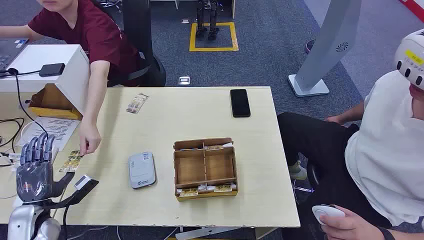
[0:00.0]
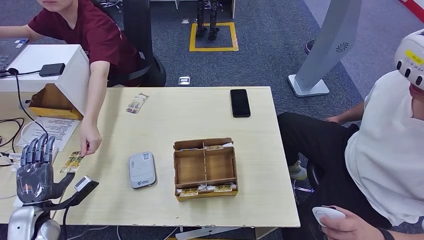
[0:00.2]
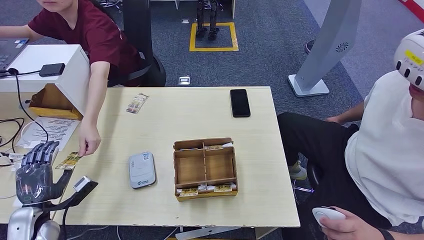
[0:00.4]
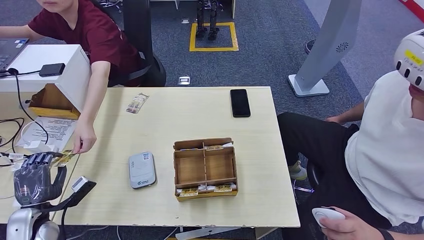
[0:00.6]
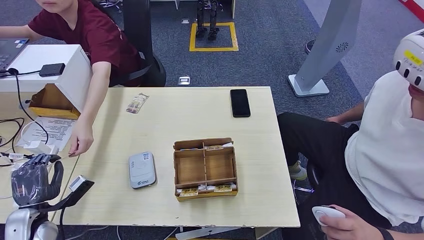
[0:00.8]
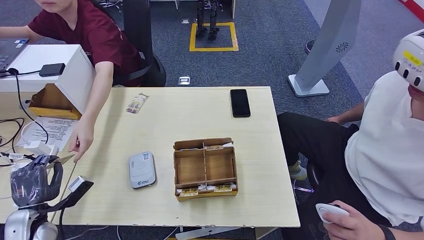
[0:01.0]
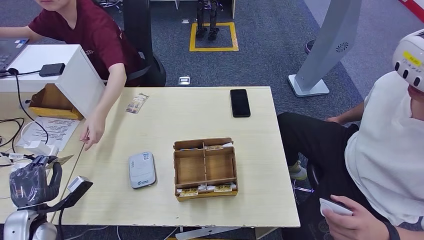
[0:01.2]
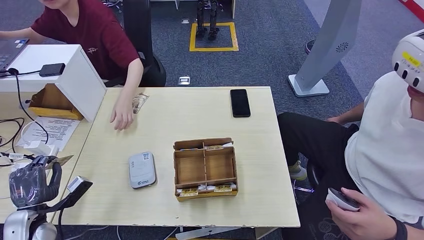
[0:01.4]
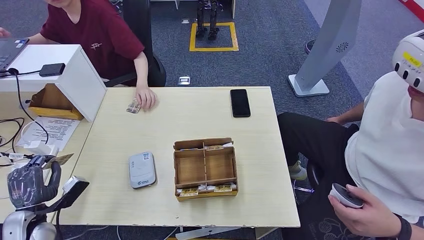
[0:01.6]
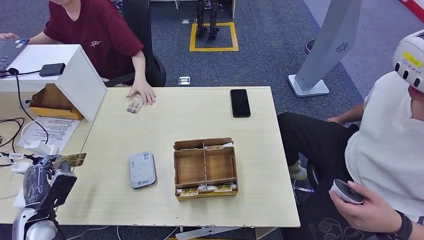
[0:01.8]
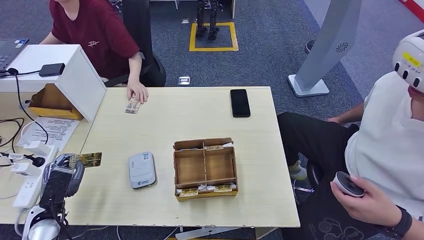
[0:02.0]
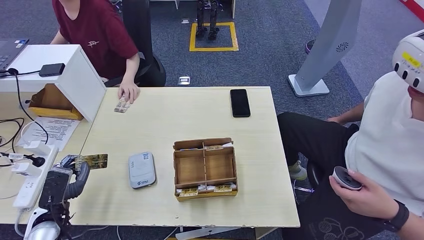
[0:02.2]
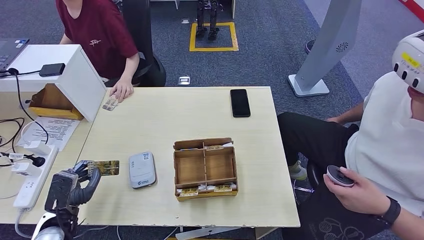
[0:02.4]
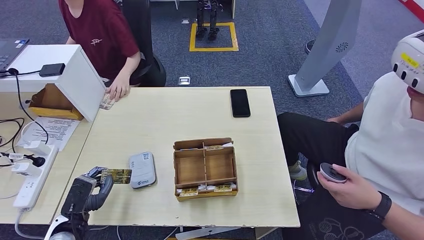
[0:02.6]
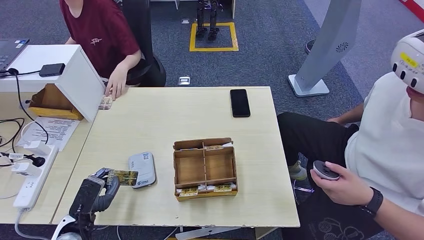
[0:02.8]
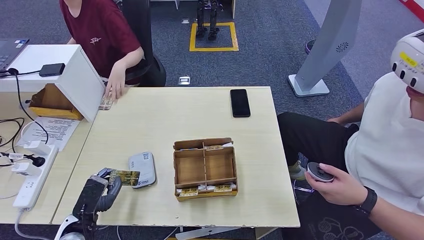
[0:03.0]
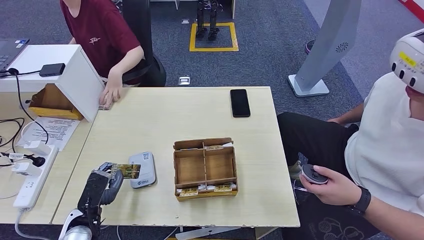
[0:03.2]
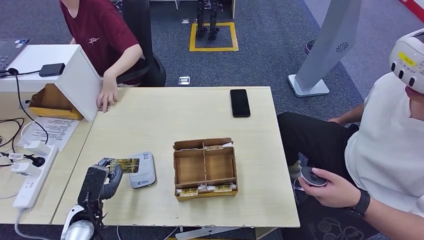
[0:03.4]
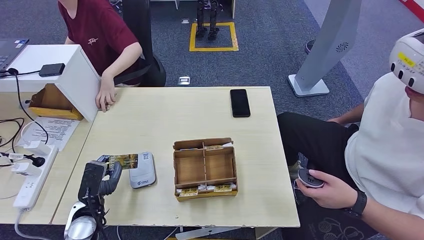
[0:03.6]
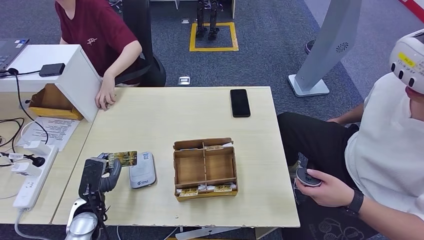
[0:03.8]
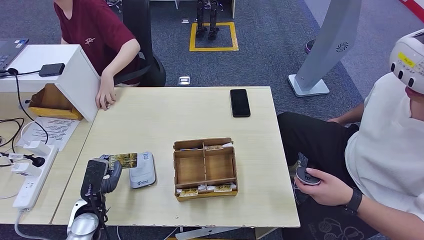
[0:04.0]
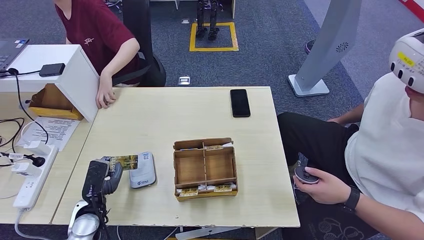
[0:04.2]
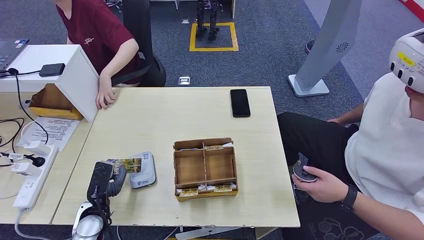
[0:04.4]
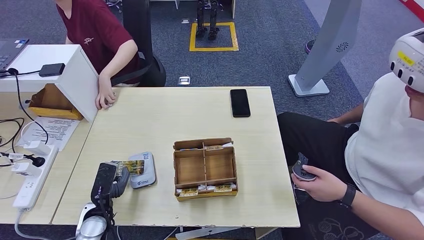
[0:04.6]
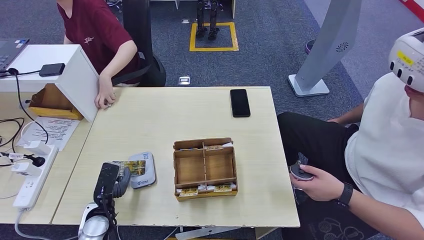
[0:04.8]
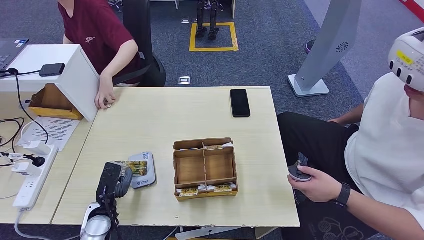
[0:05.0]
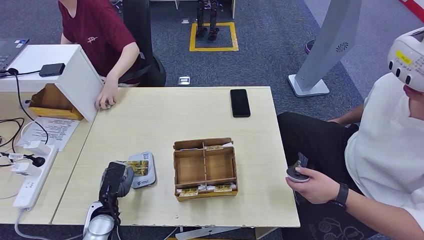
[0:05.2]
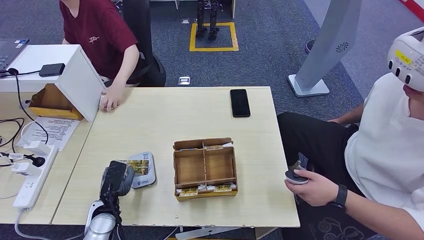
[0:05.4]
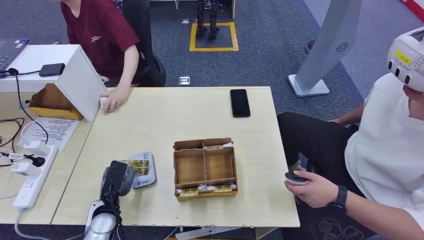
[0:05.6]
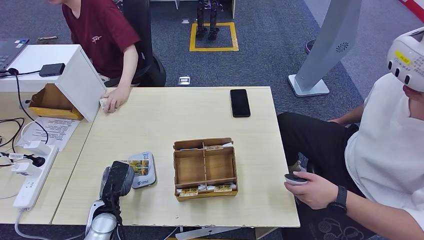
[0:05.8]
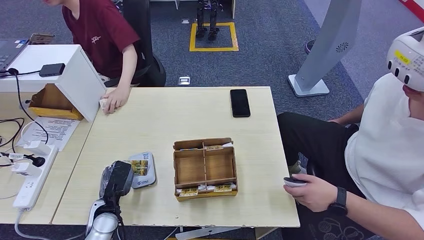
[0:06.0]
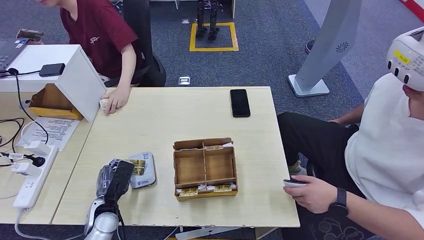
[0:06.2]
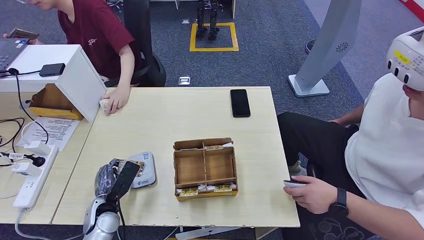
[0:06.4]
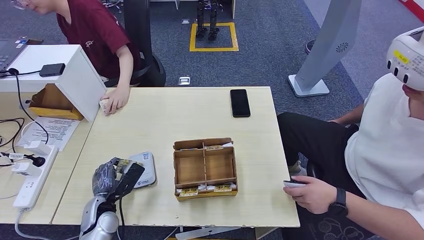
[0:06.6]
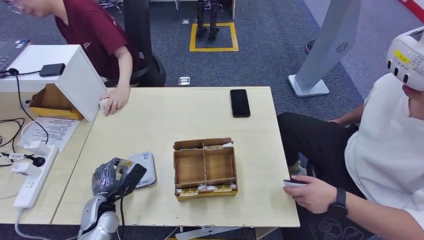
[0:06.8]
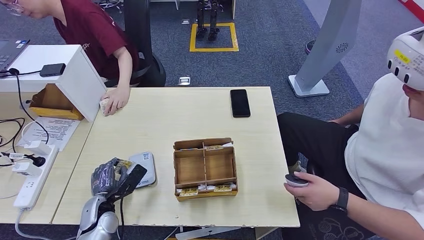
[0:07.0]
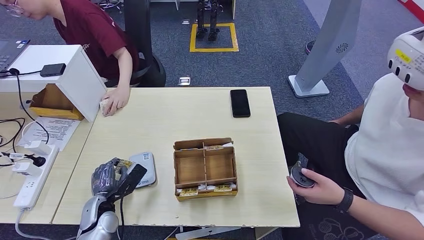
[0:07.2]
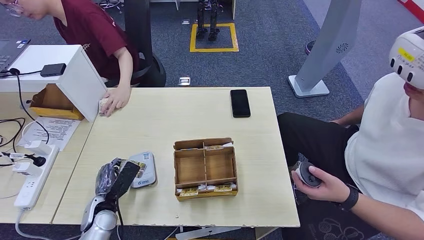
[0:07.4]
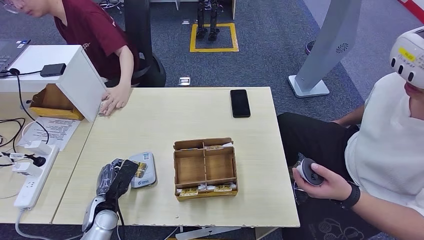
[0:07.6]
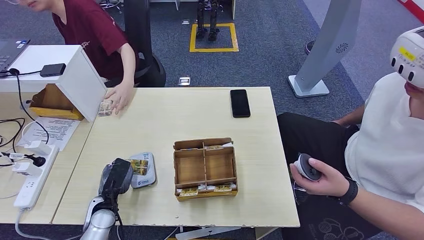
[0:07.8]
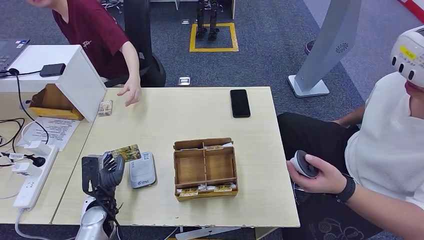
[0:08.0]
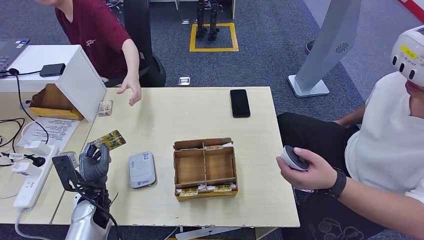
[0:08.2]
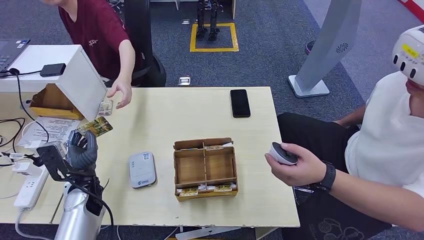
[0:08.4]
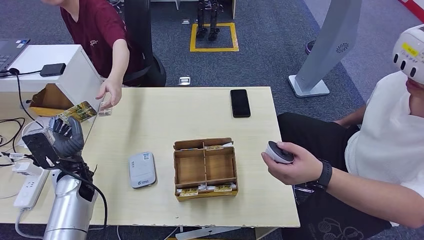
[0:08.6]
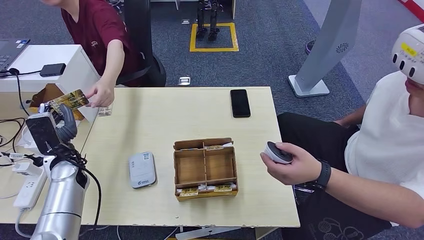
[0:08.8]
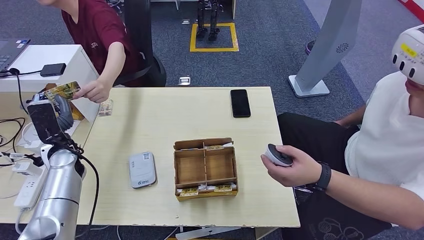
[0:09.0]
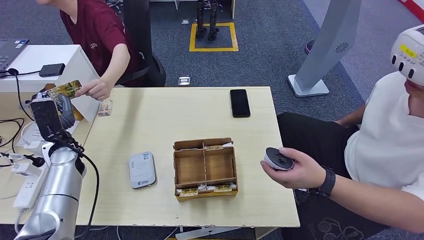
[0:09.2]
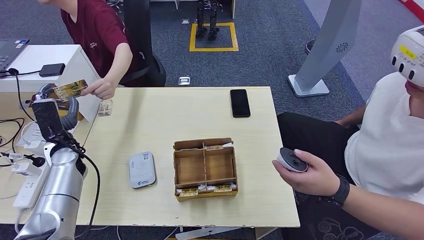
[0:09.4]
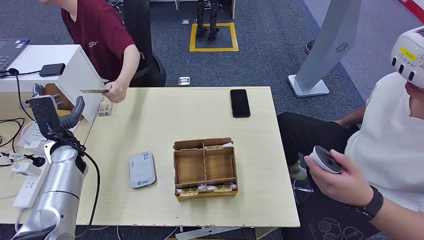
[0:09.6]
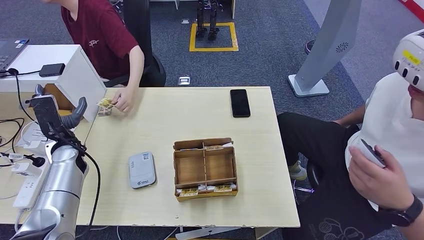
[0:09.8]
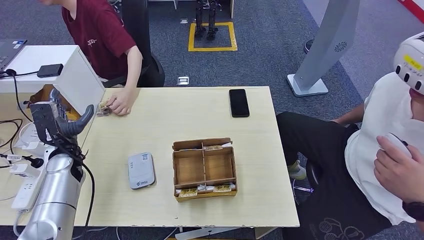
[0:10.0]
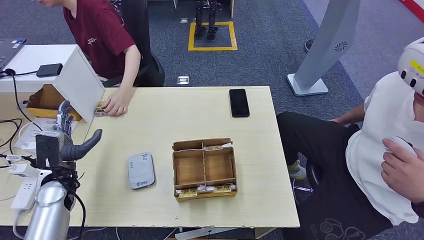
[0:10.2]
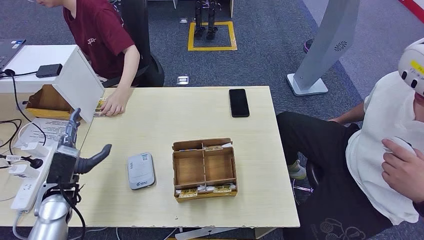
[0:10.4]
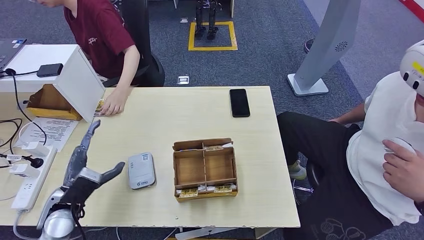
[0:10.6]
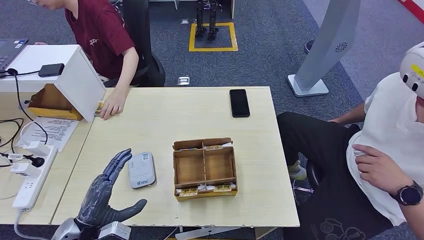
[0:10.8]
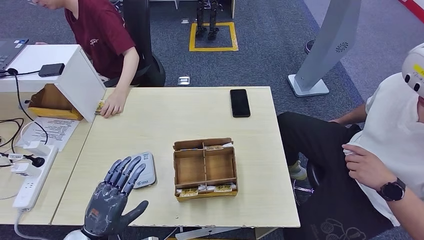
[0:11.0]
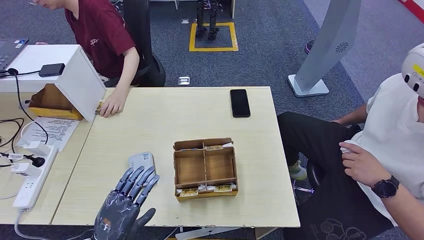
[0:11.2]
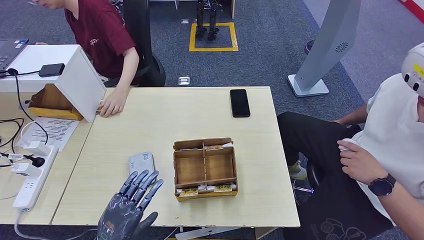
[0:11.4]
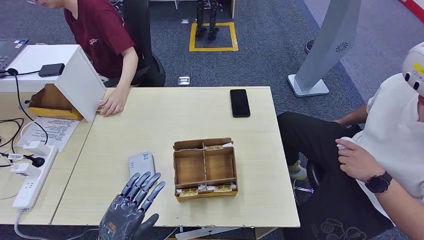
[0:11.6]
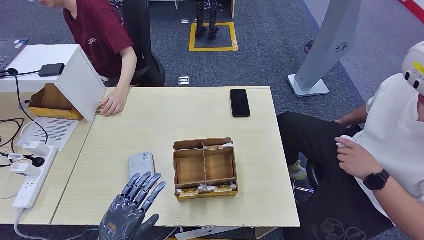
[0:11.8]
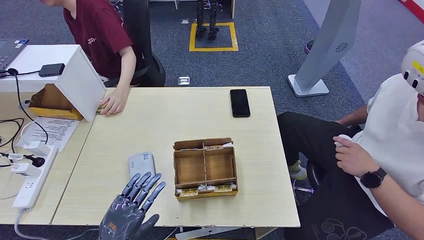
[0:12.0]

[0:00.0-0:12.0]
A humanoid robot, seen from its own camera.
Step, 0:00.0 to 0:01.0: Take the ID card from the person's hand.
Step, 0:01.4 to 0:05.6: Place the ID card on the card reader.
Step, 0:06.0 to 0:09.2: Hand the ID card to the person.
0:01.6 to 0:03.0: The left hand is displaced to the right by approximately 10 cm.
0:03.0 to 0:04.4: There are only small adjustments of the hands.
0:04.4 to 0:06.0: The hands stay close to where they were, moving slightly.
0:07.6 to 0:09.0: The left hand goes some 20 cm upward, forward and to the left.
0:10.4 to 0:12.0: The left hand moves backward and to the right, some 15 cm.

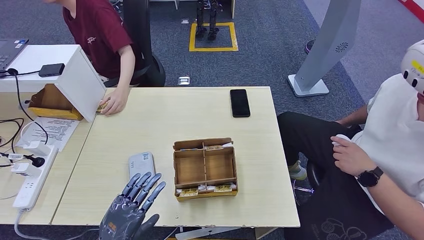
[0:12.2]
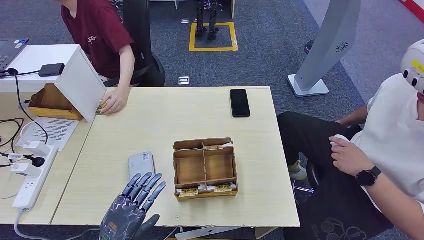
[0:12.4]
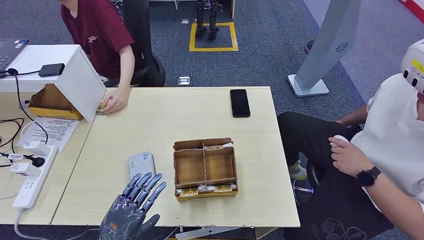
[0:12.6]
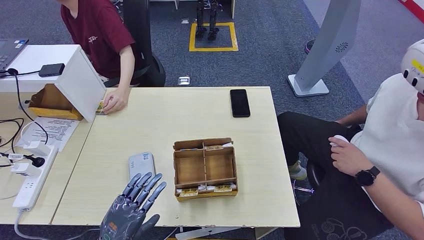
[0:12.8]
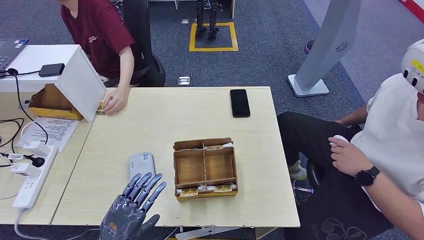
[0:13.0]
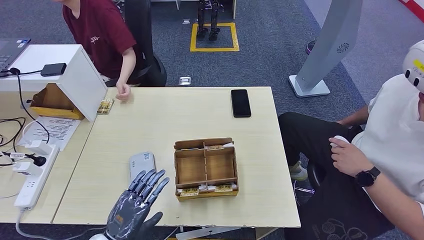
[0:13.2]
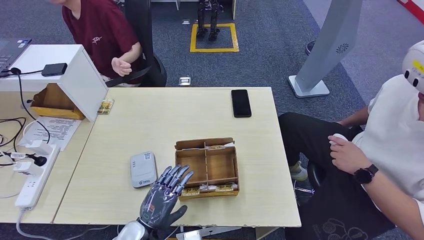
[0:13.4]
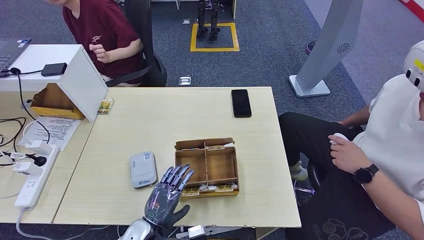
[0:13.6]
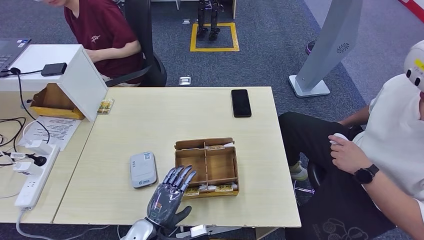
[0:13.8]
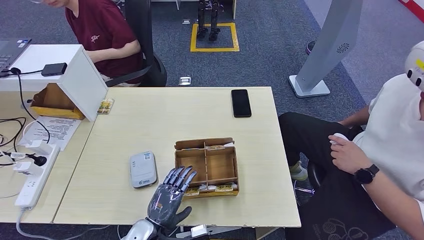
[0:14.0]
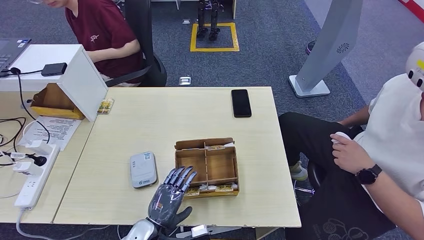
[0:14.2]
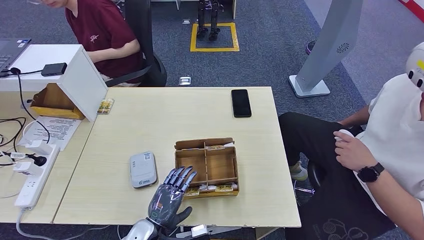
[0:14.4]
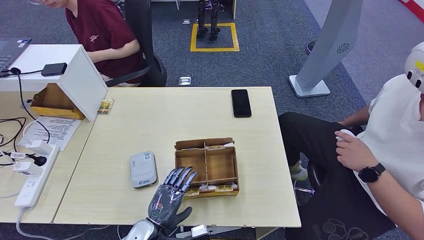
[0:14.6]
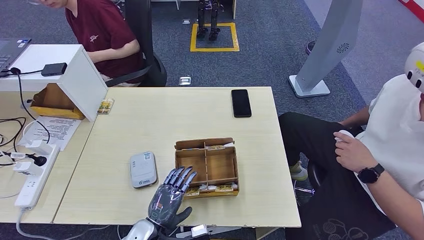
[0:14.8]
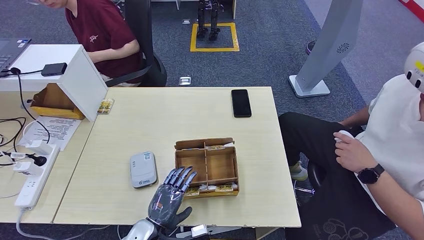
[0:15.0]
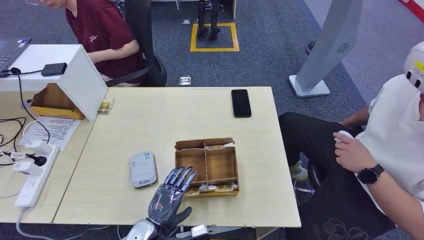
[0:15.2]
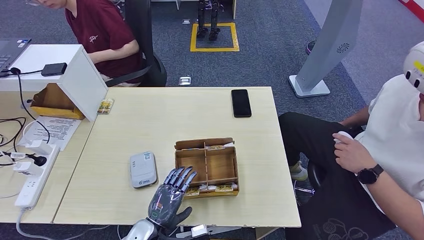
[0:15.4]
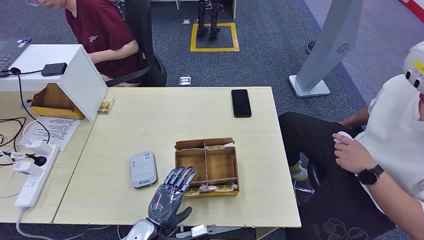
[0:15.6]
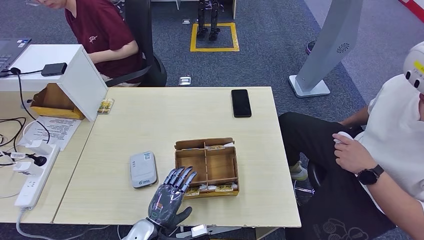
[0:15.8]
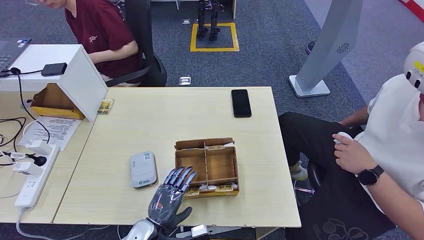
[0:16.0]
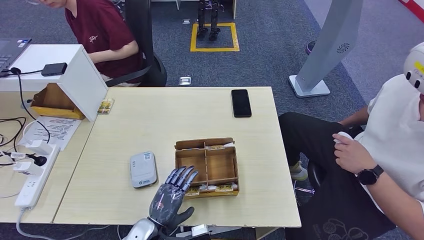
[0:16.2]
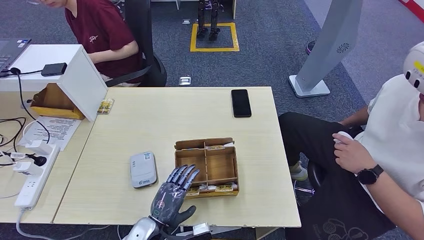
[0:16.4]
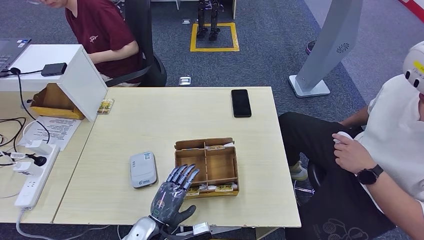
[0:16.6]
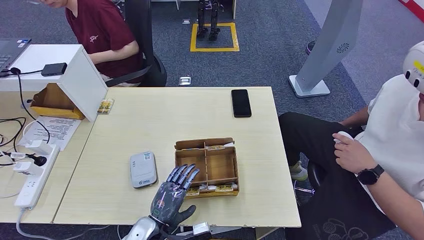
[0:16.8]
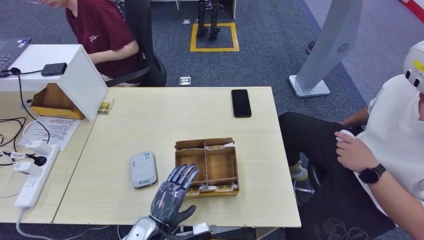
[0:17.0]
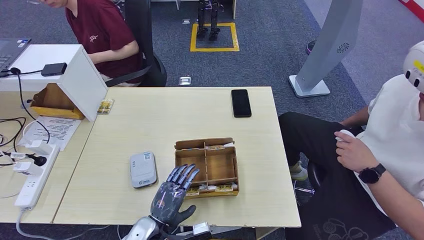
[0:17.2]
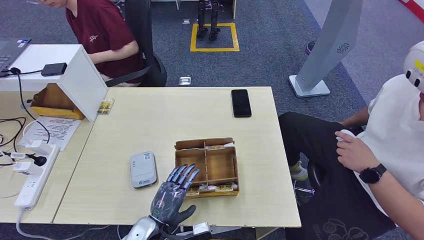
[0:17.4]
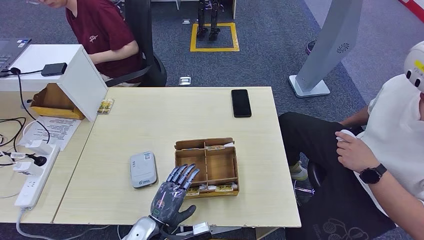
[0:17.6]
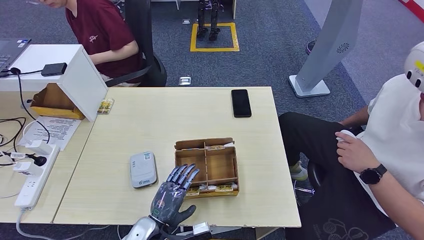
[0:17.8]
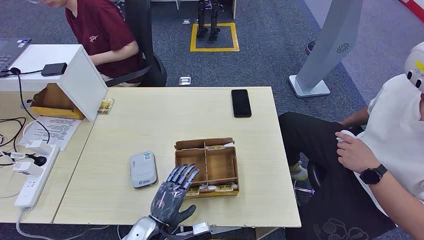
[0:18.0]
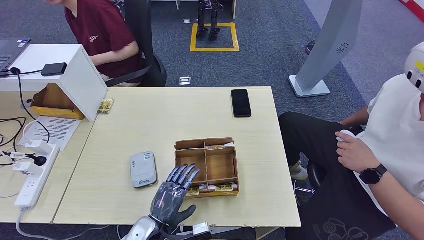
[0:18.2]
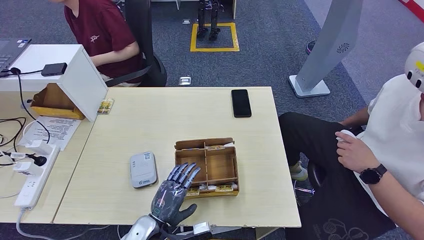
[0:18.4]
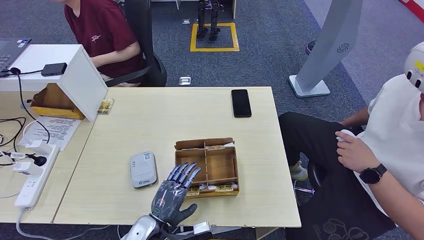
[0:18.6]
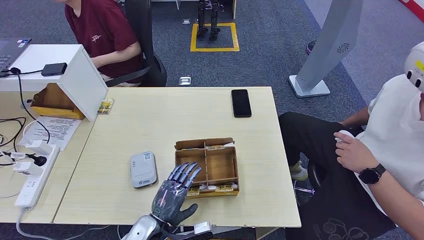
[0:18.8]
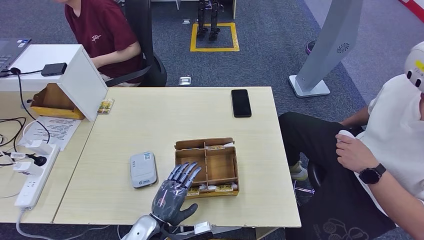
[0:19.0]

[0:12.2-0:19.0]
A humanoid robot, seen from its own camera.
0:12.2 to 0:13.6: The left hand travels to the right, downward and forward by about 10 cm.
0:13.6 to 0:16.2: The two hands keep their place.
0:16.2 to 0:17.6: Both hands stay about where they are.
0:17.6 to 0:19.0: Both hands stay put.
